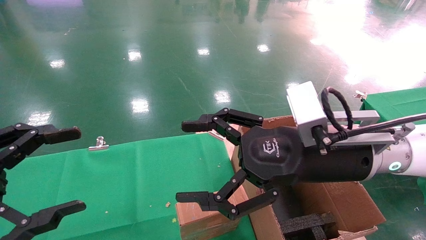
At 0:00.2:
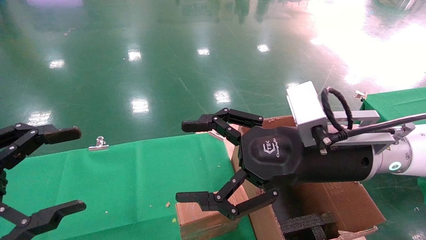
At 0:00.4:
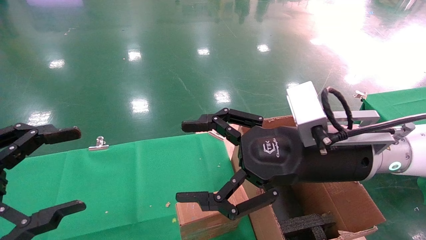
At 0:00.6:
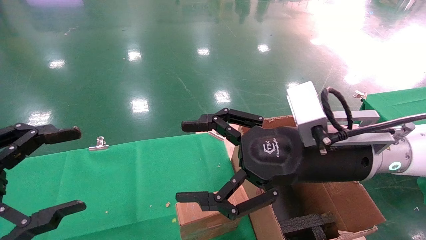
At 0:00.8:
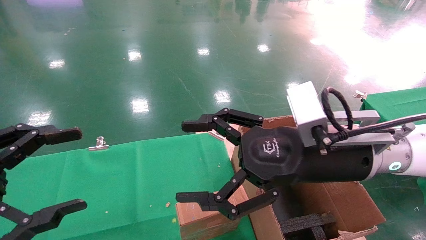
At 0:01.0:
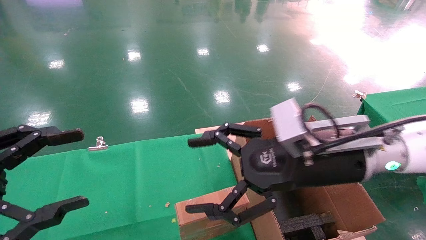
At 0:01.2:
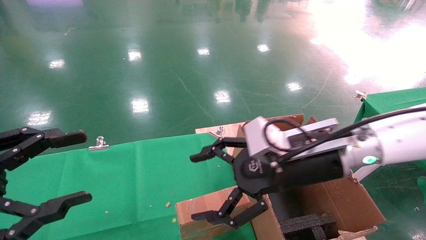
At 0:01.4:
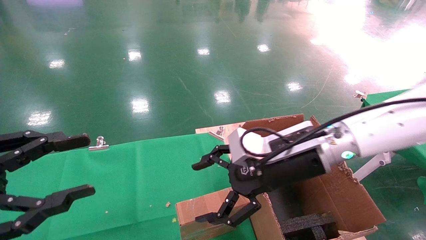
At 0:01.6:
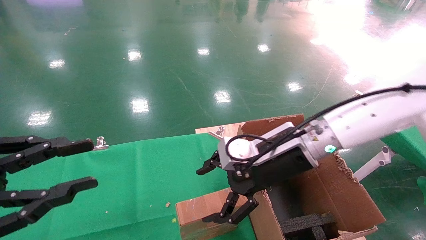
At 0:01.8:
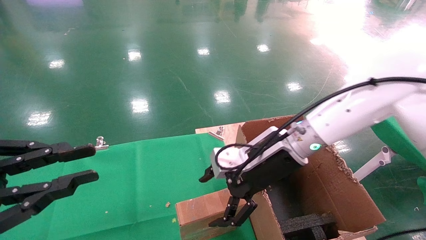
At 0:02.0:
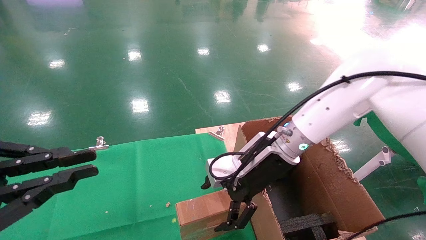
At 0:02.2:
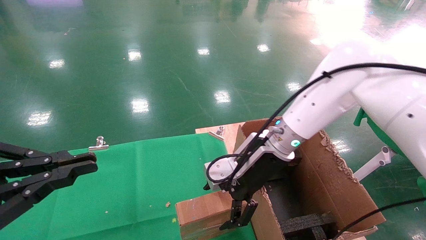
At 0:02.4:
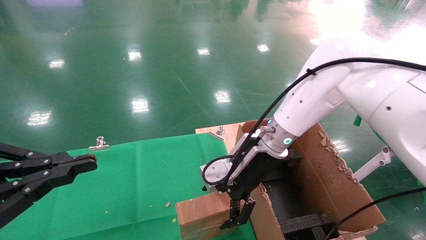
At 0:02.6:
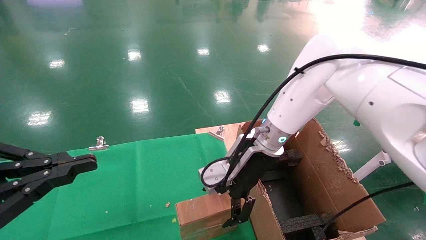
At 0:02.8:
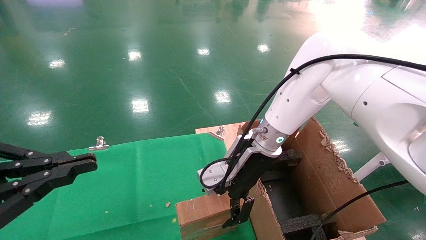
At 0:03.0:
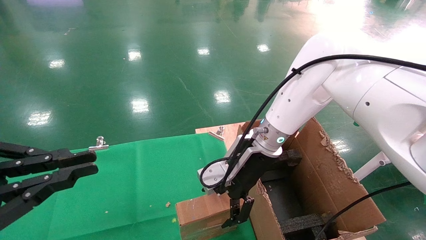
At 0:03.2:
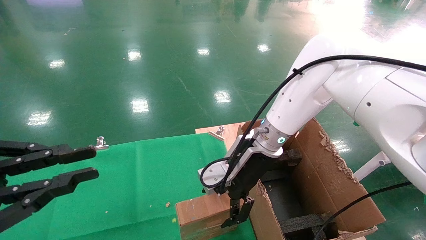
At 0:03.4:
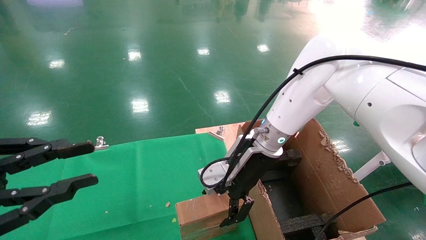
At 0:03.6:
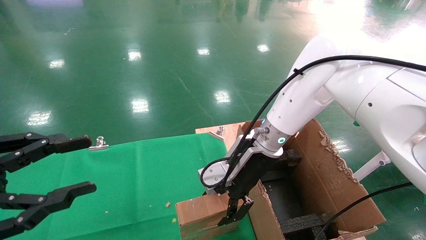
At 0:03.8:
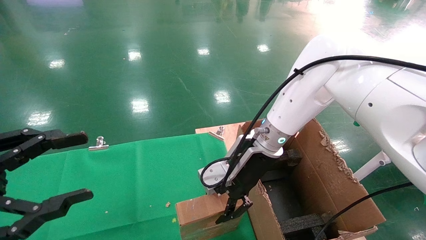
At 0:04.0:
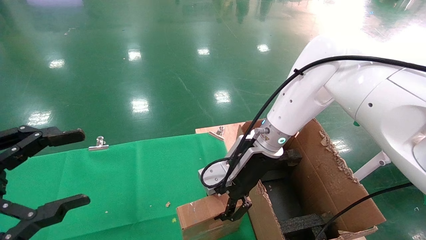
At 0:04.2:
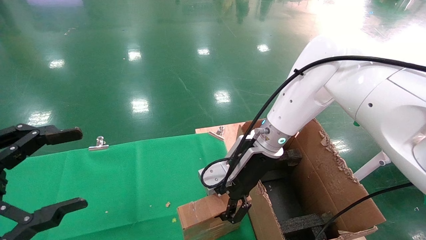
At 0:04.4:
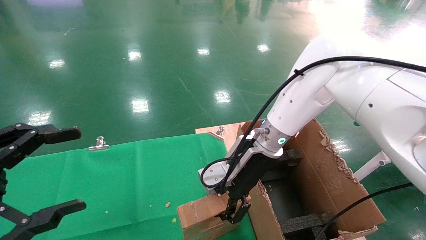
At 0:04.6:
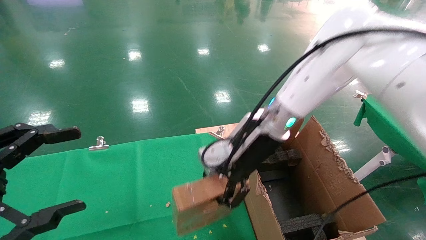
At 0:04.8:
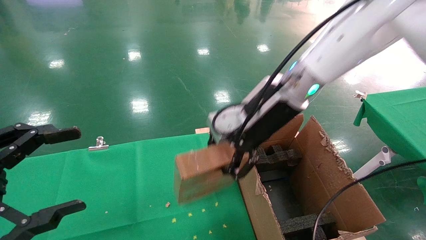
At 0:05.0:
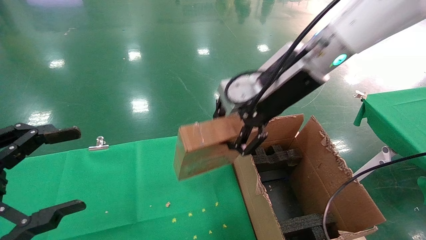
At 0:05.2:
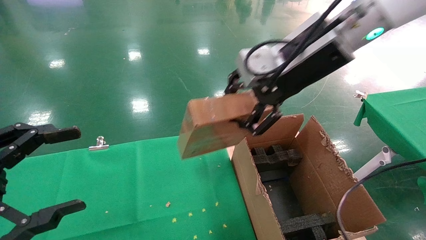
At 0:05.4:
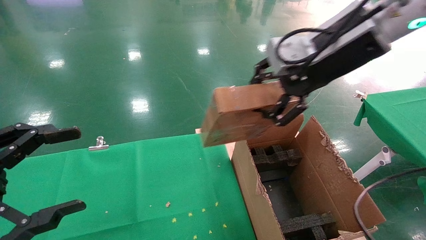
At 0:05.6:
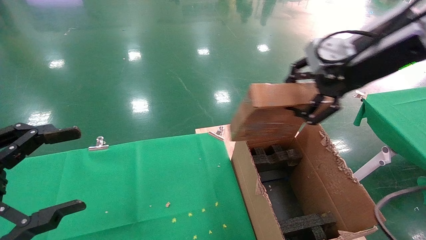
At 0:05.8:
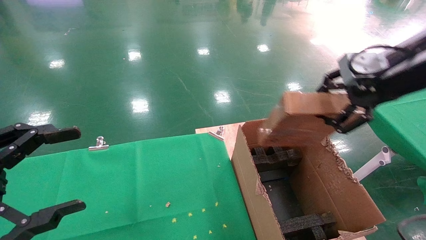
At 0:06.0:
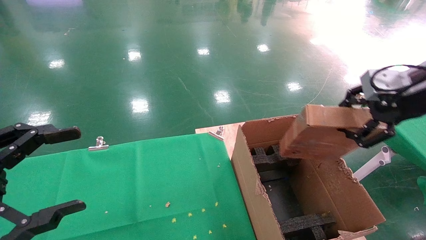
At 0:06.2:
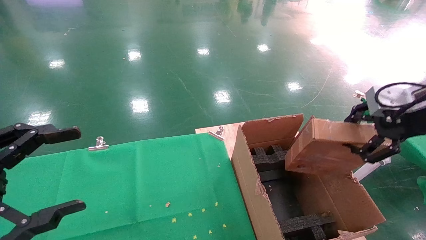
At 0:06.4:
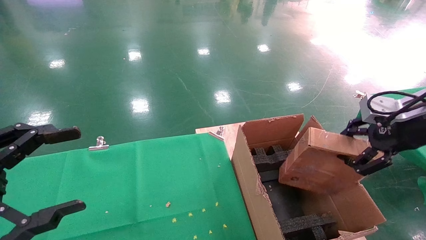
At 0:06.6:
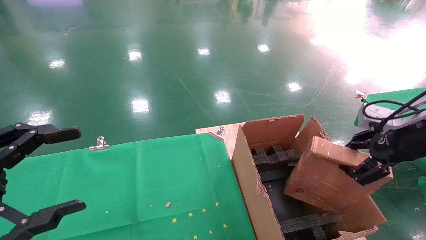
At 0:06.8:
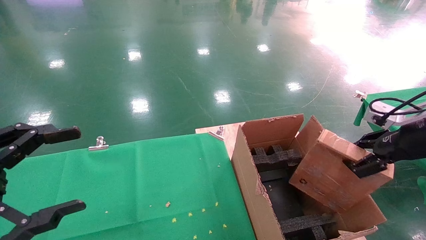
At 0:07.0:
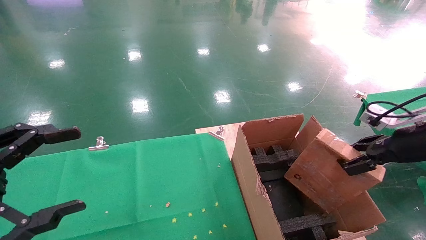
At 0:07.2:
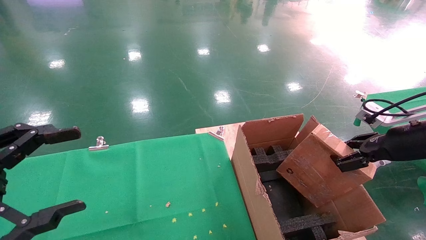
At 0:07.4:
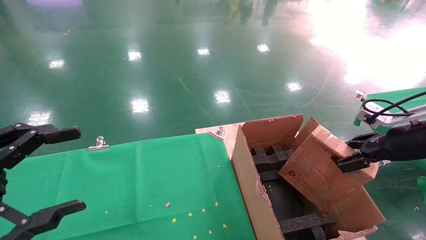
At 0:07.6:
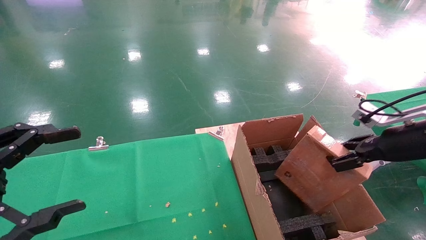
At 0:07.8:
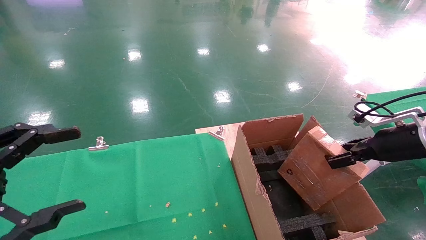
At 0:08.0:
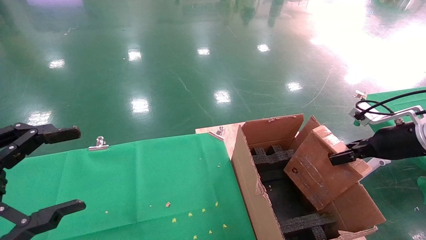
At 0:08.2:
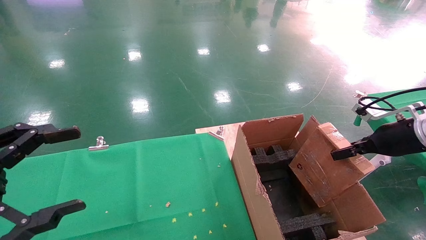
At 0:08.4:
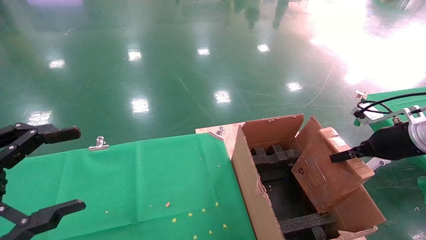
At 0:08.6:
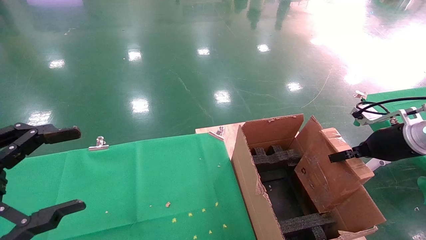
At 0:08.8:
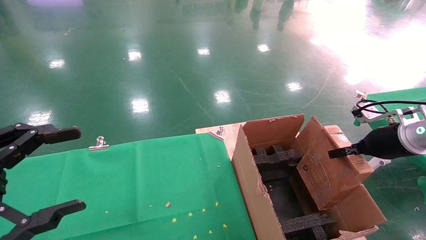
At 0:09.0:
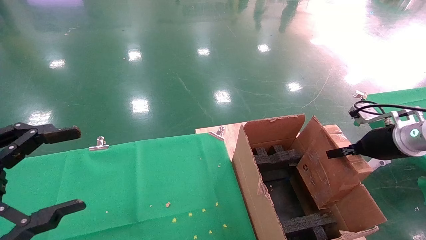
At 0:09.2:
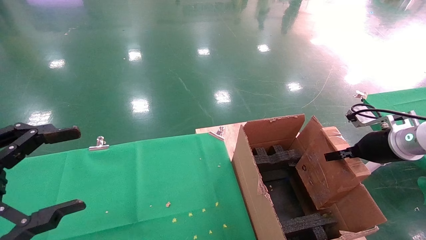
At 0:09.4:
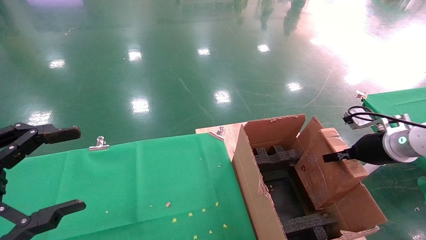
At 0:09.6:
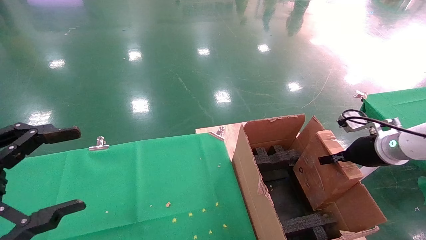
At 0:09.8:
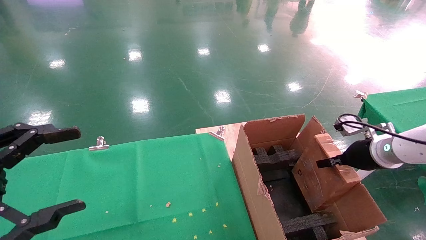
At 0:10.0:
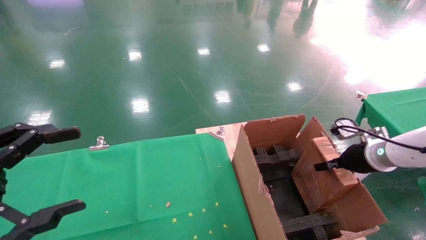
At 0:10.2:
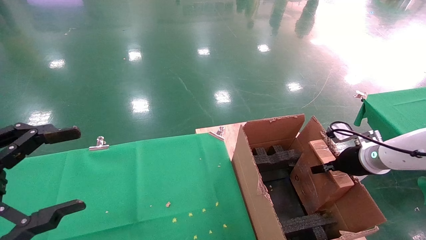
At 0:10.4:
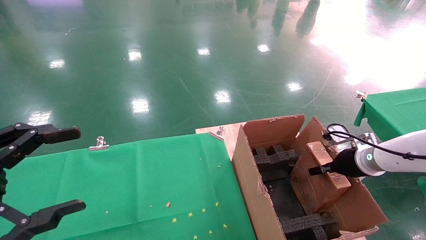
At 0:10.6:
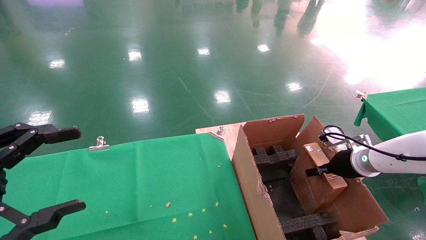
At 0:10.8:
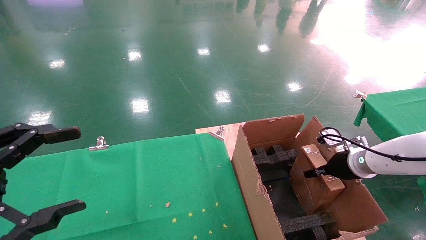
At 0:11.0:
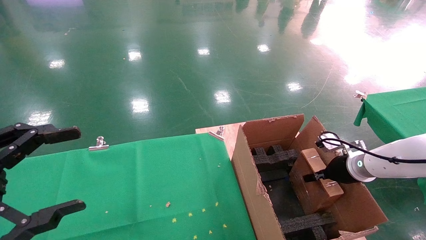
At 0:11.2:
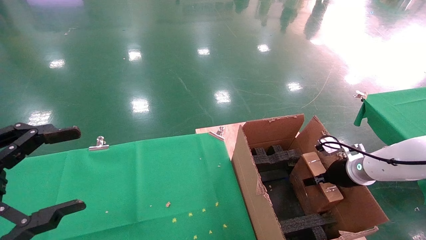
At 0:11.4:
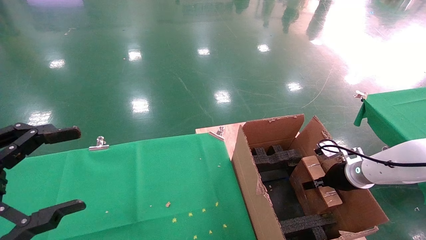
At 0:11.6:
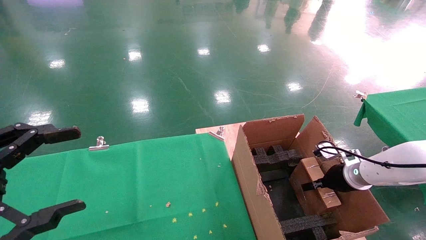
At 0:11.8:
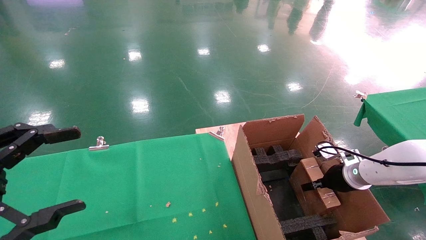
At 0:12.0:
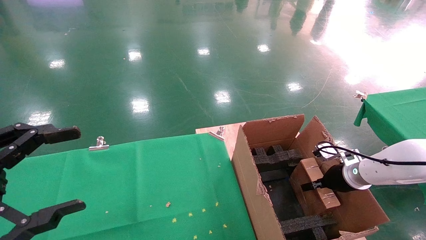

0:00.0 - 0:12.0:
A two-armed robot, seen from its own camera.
Task of the whole recording: using a robotic arm to pick up a cardboard box and palace it the carton.
Step, 0:01.4 - 0:04.2: Pick up the mouse and the power cord paper box.
0:00.0 - 0:01.6: The left gripper closes its fingers, while the right gripper goes roughly 10 cm forward.
0:01.6 - 0:03.0: The right gripper goes some 5 cm forward. Meanwhile the left gripper closes up.
0:03.0 - 0:04.4: The left gripper opens up; the right gripper closes.
0:04.4 - 0:06.0: The right gripper travels to the right, upward and backward by some 30 cm.
0:06.0 - 0:07.6: The right gripper is displaced downward and to the right by some 15 cm.
0:09.0 - 0:10.4: The right gripper heads downward, covering approximately 5 cm.
0:10.4 - 0:12.0: The right gripper shifts some 5 cm downward.

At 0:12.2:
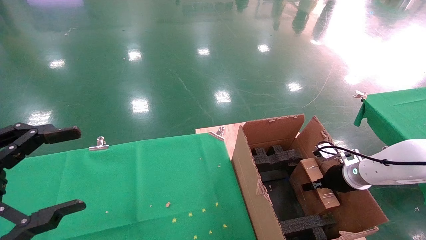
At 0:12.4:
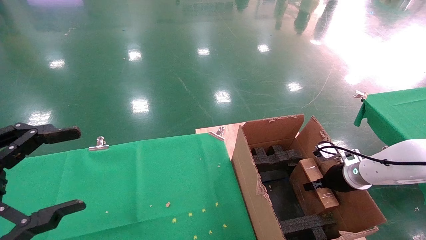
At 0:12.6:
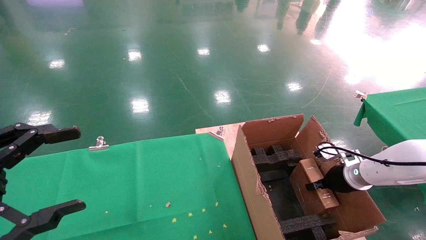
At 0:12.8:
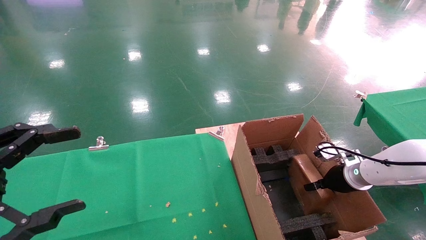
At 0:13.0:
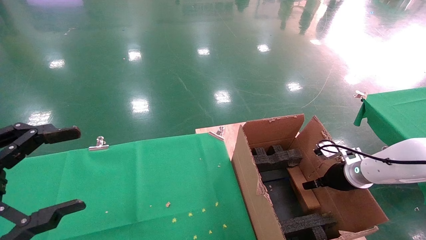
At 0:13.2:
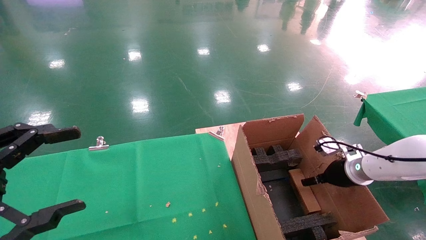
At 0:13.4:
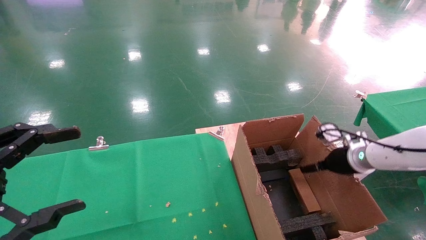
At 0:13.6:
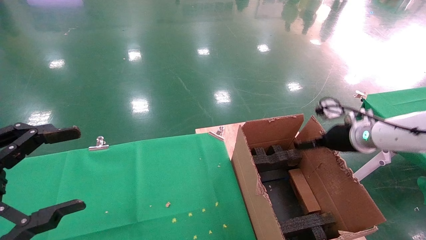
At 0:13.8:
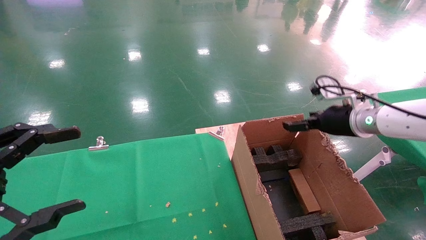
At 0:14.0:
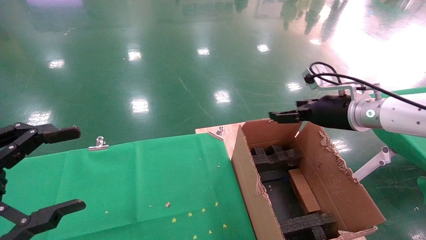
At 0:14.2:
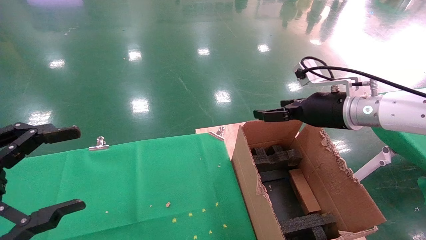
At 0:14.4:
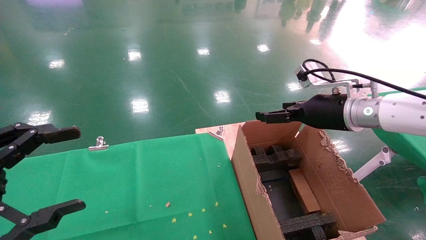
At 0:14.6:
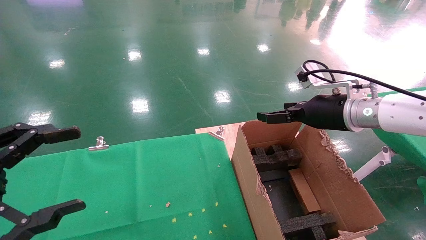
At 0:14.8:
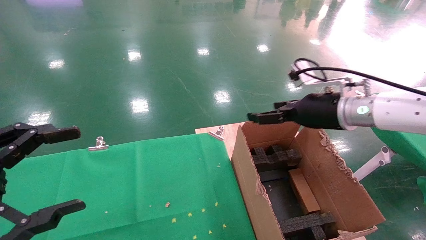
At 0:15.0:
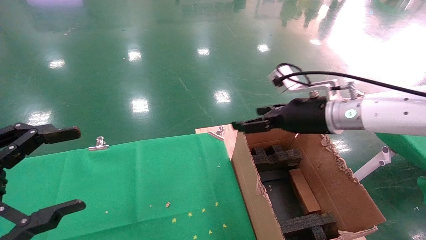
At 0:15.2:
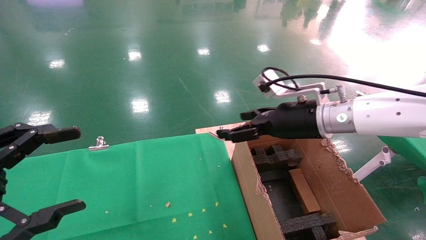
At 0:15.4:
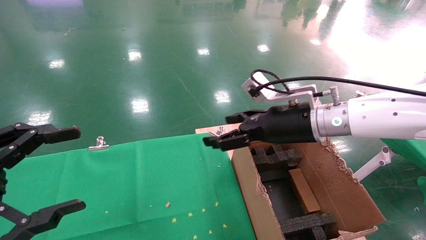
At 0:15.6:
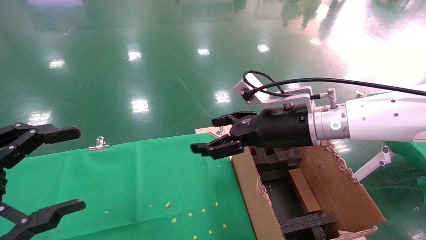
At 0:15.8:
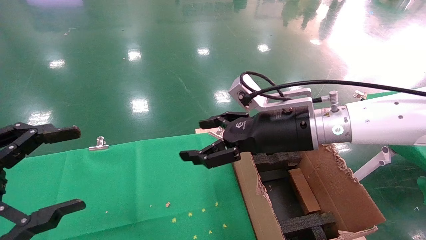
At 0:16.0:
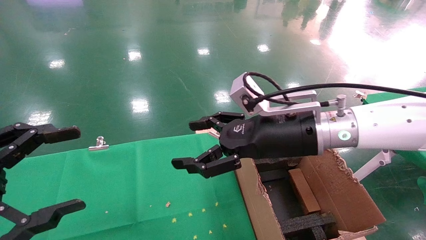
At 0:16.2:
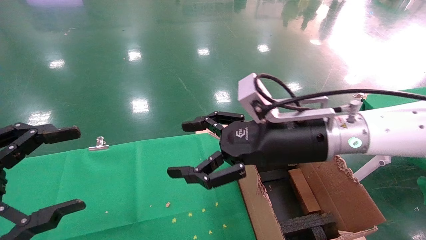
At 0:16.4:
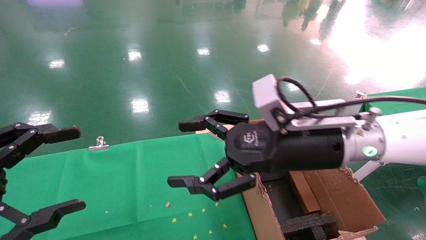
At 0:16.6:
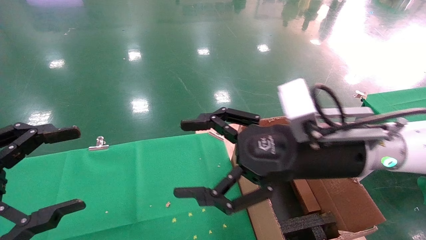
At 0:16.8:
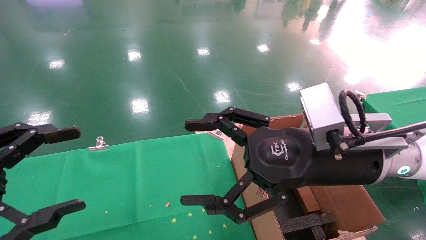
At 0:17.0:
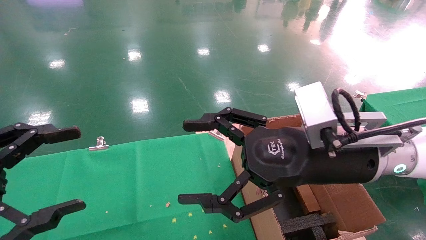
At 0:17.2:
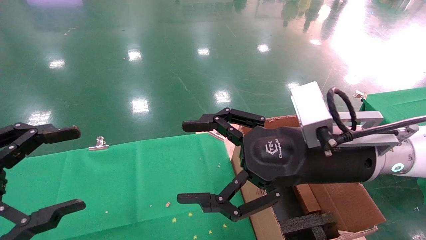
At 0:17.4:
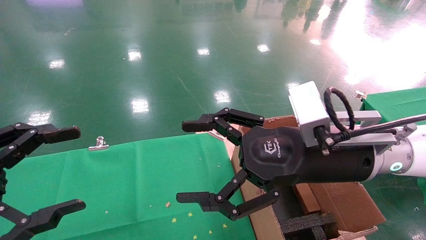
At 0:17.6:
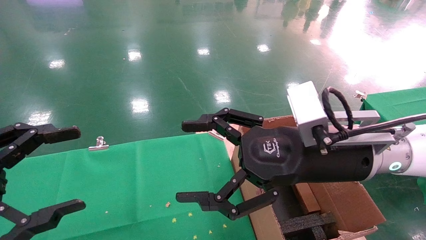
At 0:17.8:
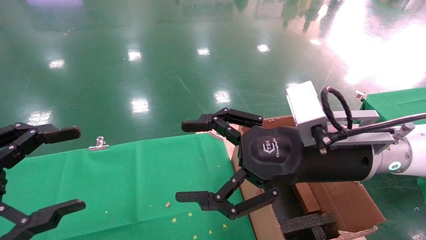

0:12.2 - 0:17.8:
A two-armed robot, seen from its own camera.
Task of the whole recording: using a robotic arm to pick up a cardboard box and palace it the carton.
0:12.2 - 0:13.6: The right gripper travels upward by roughly 10 cm, and opens.
0:13.6 - 0:15.0: The right gripper travels to the left and upward by about 15 cm.
0:15.0 - 0:16.4: The right gripper is displaced backward and to the left by some 10 cm.
0:16.4 - 0:17.8: The grippers move only a little.
